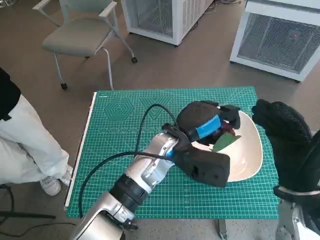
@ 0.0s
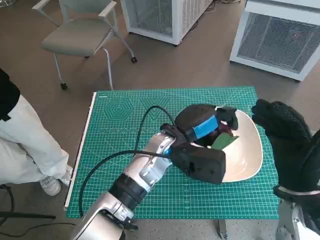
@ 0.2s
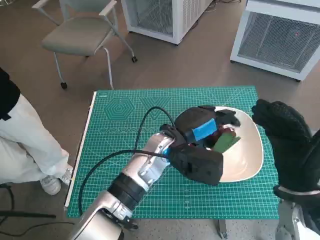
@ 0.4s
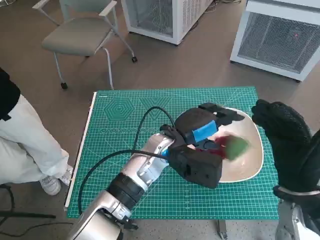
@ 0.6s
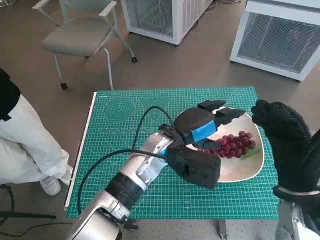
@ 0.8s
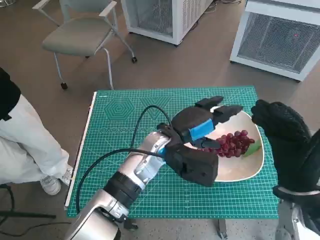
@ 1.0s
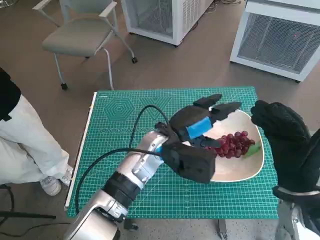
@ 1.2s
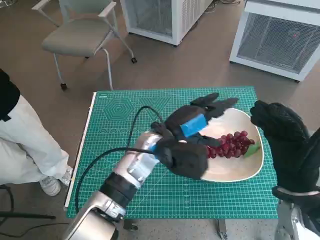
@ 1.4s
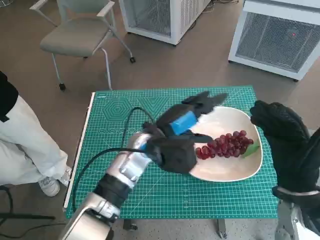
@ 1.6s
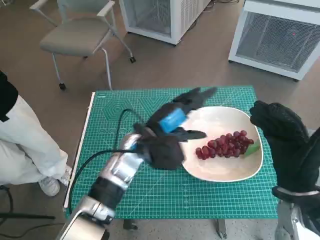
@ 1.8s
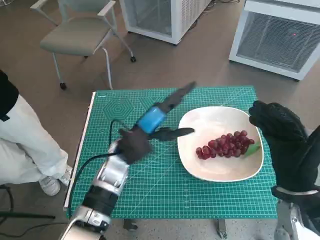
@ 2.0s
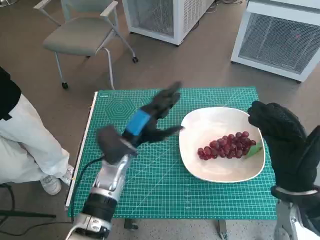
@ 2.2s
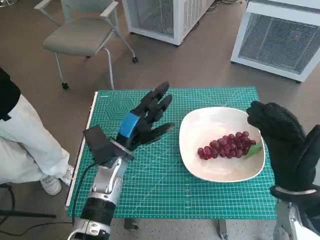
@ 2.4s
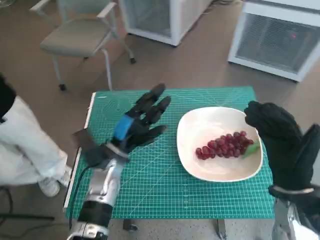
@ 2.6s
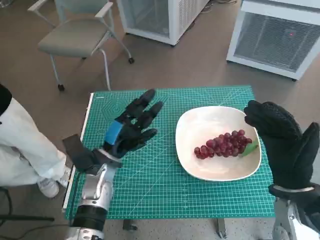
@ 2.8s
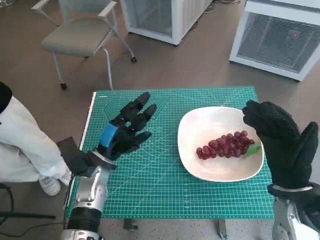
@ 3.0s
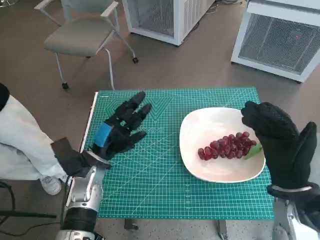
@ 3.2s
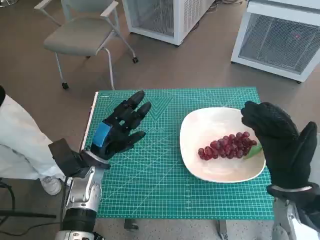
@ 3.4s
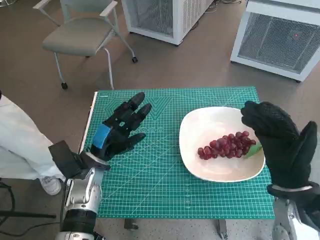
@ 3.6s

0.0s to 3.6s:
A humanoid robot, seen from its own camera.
Task of the whole recording: Pick up the grapes and put them on the plate.
0.0s to 1.8s: The left hand shifts roughly 5 cm to the left.
1.8s to 3.6s: The left hand is displaced to the left and downward by roughly 15 cm.

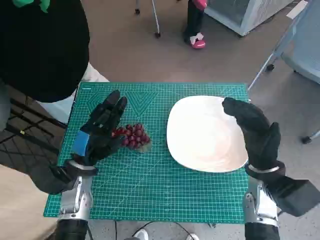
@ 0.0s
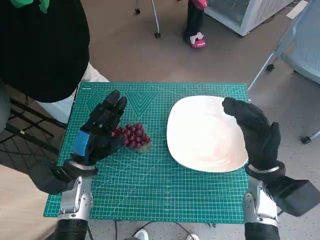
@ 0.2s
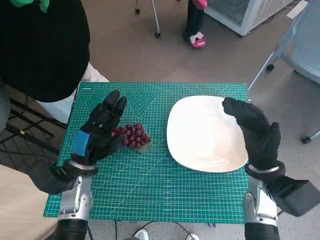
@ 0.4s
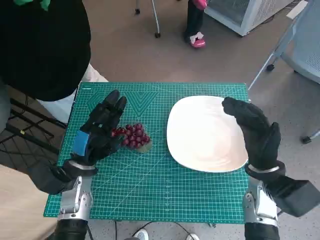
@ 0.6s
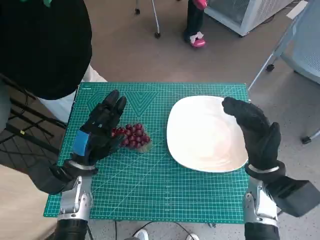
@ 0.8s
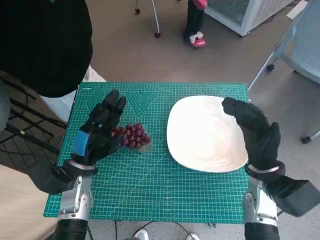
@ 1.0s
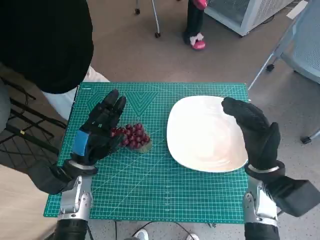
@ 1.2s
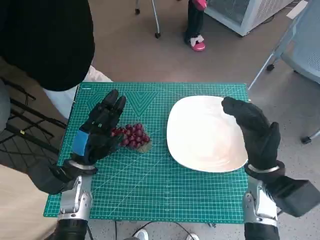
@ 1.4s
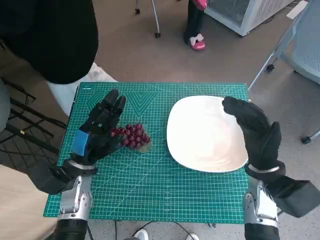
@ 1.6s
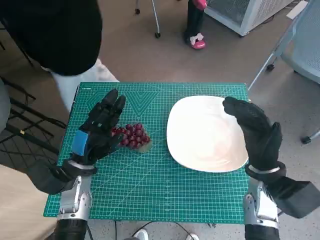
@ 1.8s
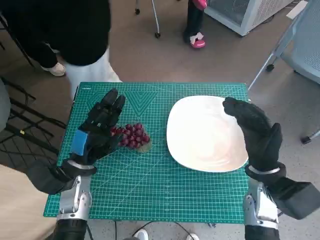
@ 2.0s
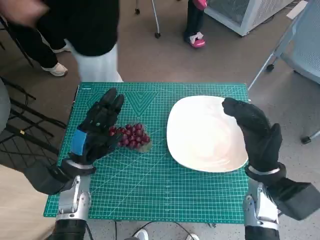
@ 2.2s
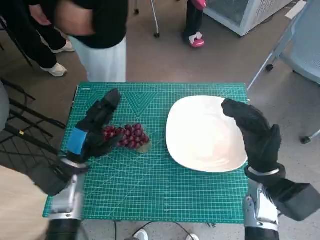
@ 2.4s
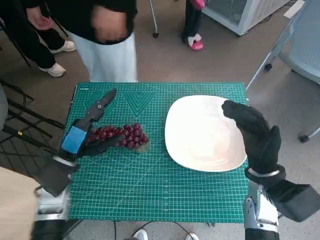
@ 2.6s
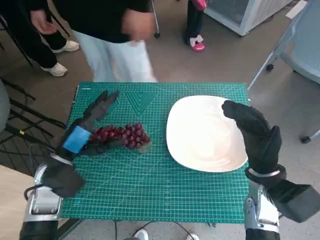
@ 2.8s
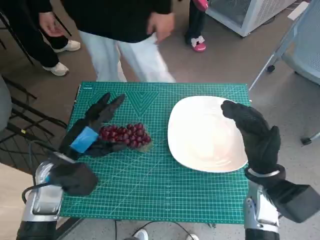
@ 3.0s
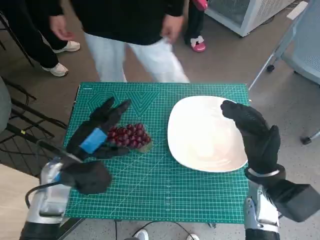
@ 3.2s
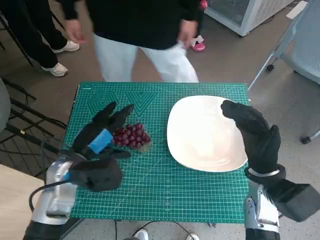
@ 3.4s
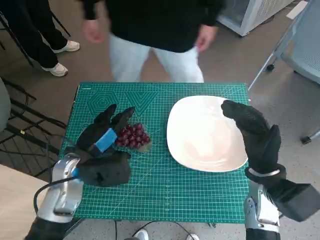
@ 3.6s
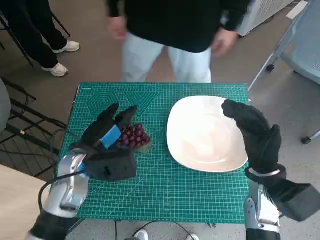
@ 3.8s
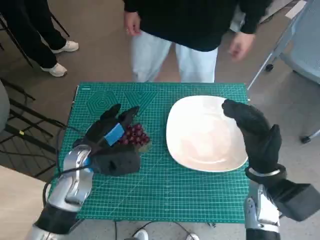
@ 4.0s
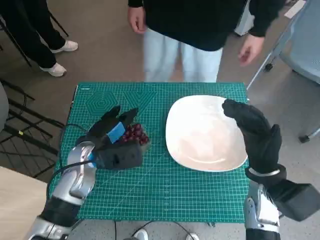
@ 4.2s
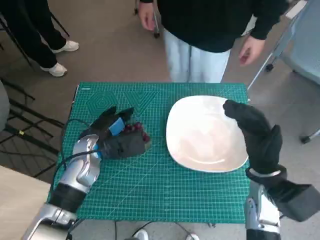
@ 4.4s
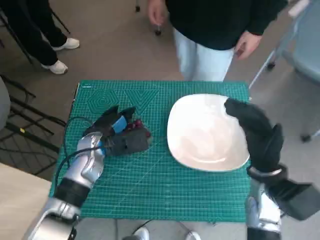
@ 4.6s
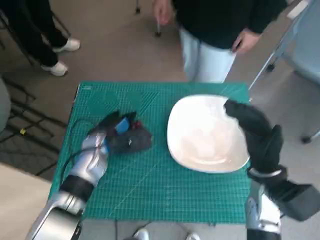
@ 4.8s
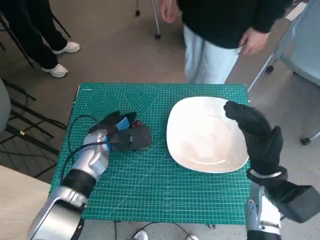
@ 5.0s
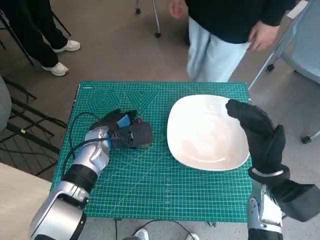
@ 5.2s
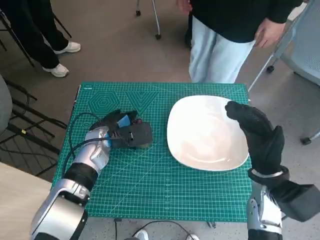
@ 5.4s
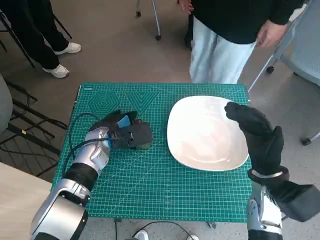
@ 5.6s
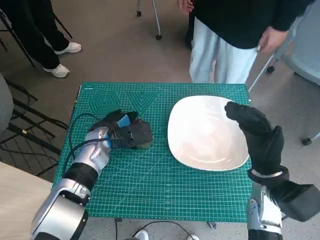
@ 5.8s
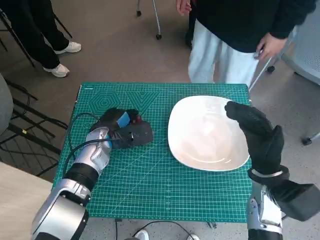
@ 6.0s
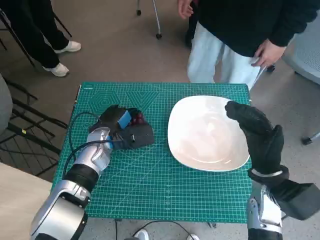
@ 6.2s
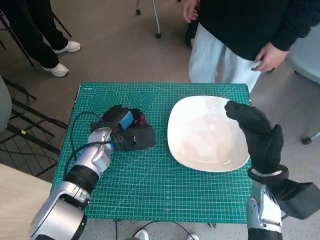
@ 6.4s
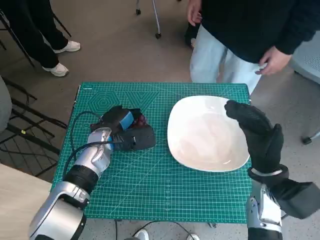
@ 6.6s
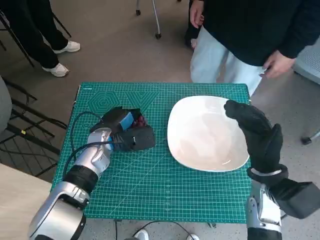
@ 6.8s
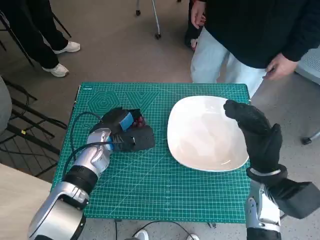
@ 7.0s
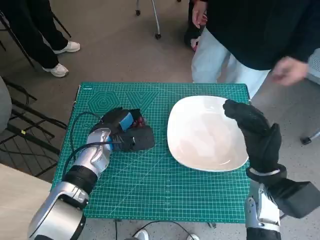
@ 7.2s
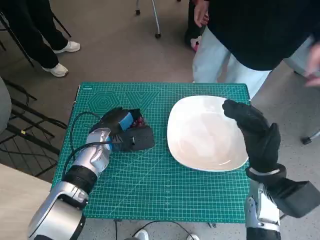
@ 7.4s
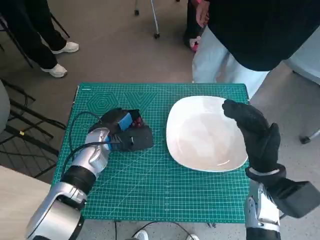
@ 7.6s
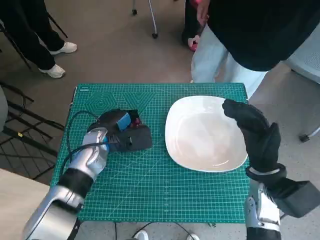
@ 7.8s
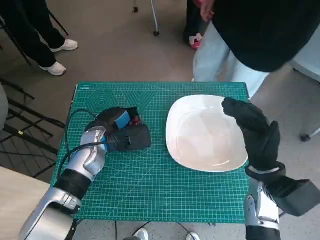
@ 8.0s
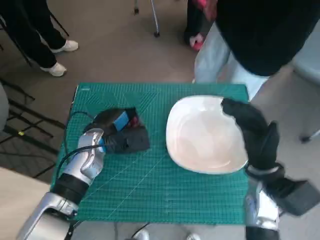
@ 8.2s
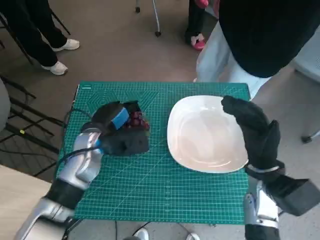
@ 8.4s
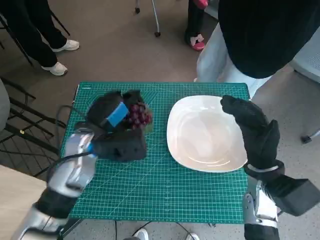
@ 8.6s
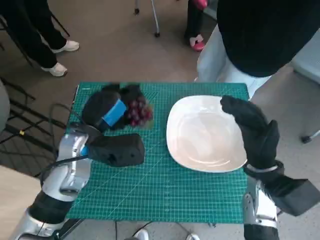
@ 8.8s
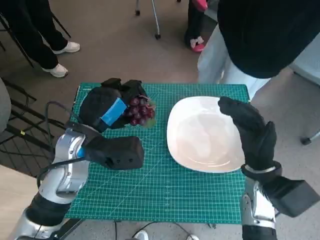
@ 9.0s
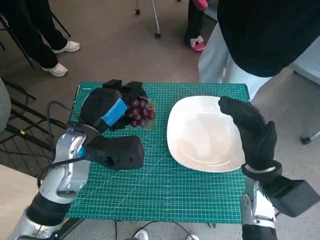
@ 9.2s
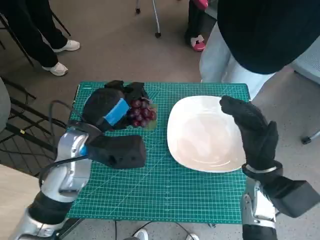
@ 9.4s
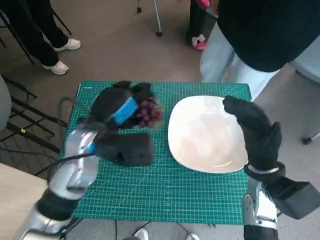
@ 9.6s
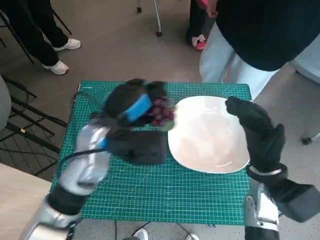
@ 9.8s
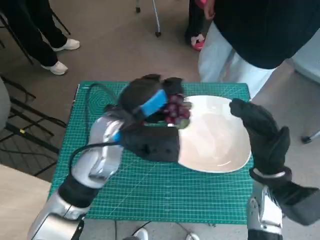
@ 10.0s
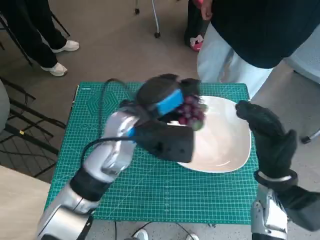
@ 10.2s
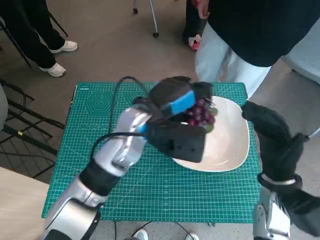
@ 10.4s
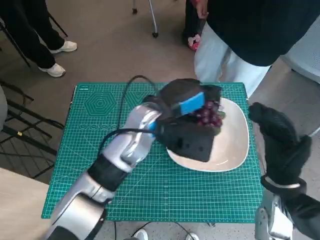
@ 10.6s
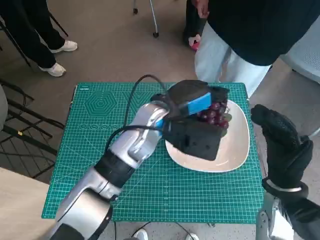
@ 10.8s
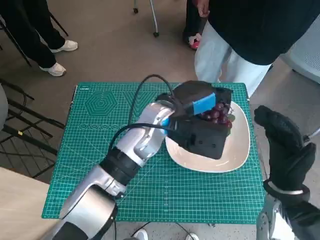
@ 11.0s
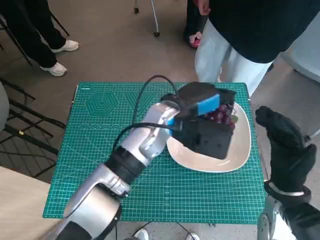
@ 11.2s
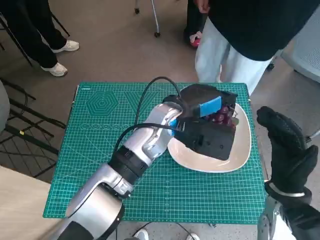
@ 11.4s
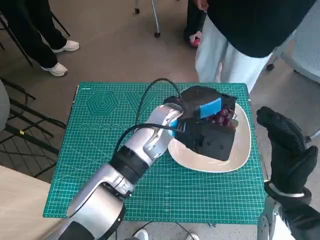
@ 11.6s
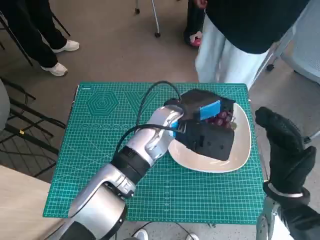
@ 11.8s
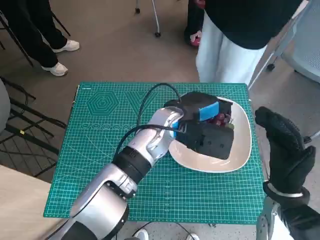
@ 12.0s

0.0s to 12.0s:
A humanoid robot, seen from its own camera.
Task of the whole recording: Pick up the grapes and put them on the plate.
Step, 0.0s to 6.6s: Grasp the grapes with left hand.
1.6s to 3.0s: The left hand moves some 5 cm.
3.0s to 4.4s: The left hand heads forward, covering some 5 cm.
6.0s to 7.6s: The hands make only small movements.
7.6s to 9.0s: The left hand shifts roughly 10 cm upward and backward.
9.0s to 10.4s: The left hand shifts about 10 cm to the right.
10.4s to 12.0s: The left hand goes roughly 5 cm to the right.

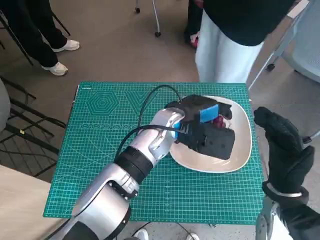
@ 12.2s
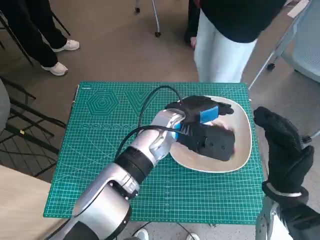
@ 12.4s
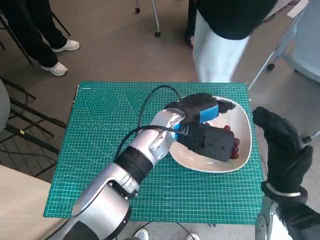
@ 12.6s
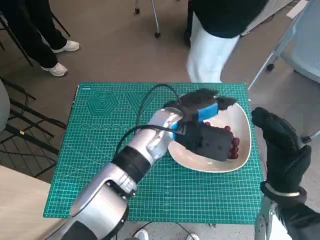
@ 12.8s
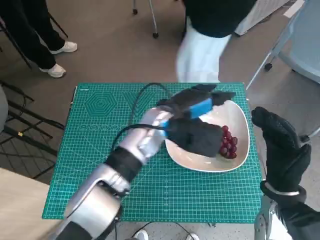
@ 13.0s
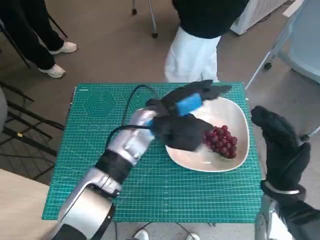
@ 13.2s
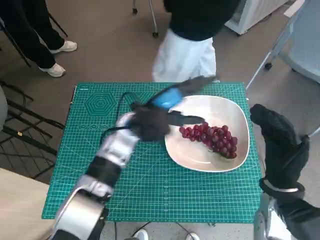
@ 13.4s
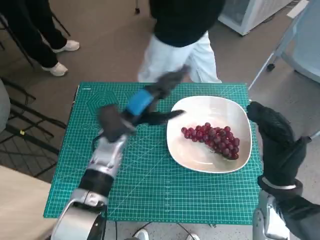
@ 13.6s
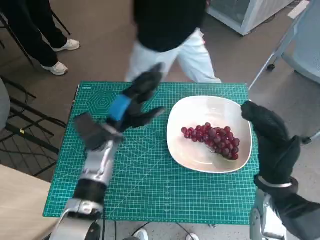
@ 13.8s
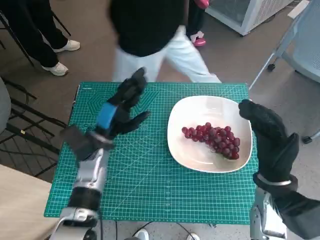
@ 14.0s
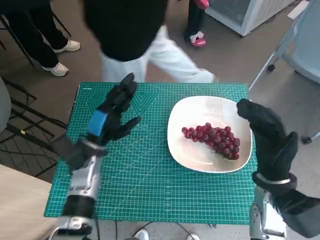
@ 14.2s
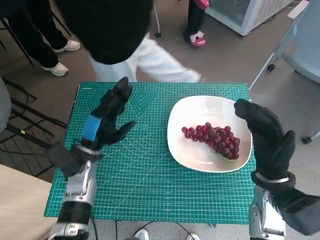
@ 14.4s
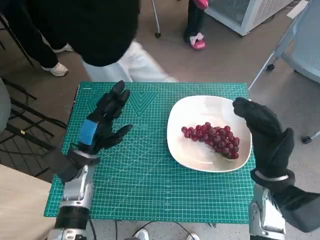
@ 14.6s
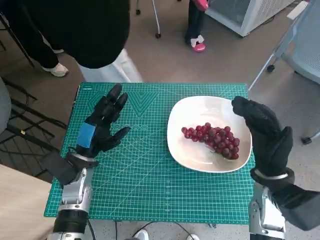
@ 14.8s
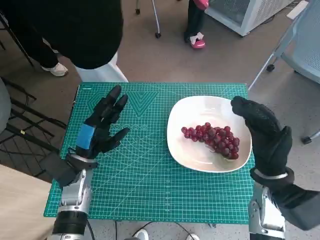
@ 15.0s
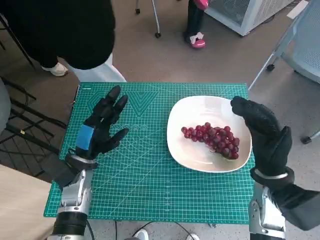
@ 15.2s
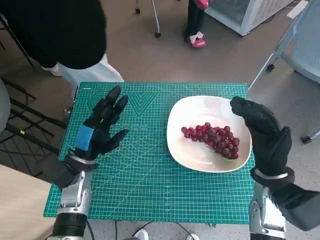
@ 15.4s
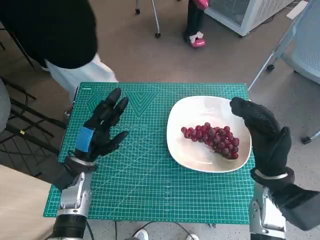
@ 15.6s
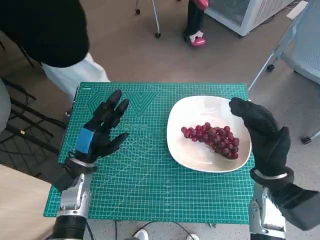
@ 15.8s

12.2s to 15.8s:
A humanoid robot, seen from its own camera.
Task of the whole recording: Pick up the grapes and put them on the plate.
12.2s to 14.0s: The left hand travels to the left and downward by about 15 cm.
14.0s to 15.8s: The left hand shifts about 5 cm backward.

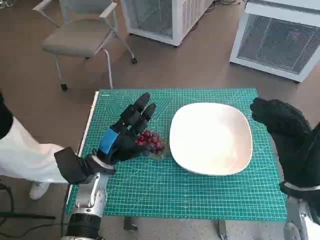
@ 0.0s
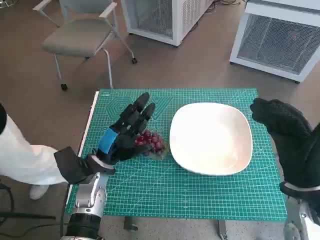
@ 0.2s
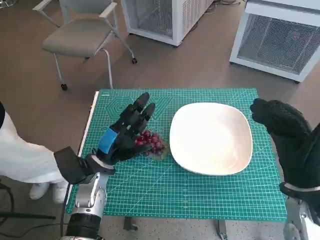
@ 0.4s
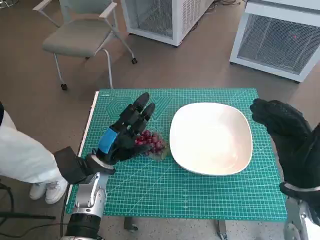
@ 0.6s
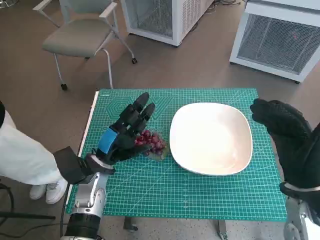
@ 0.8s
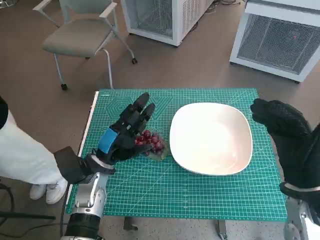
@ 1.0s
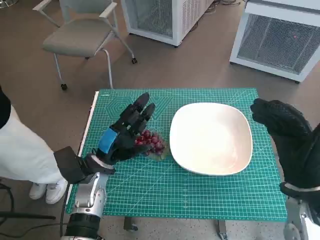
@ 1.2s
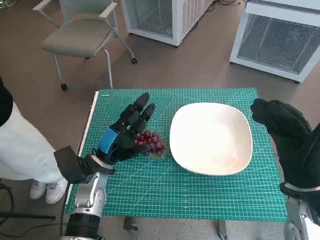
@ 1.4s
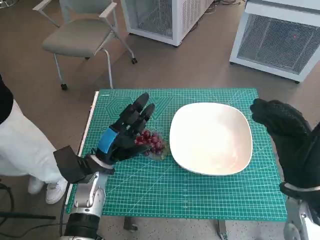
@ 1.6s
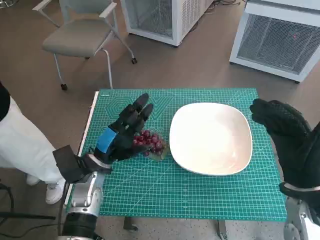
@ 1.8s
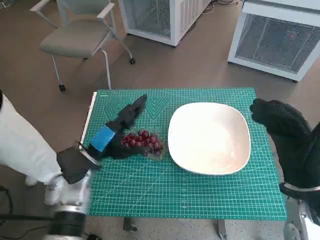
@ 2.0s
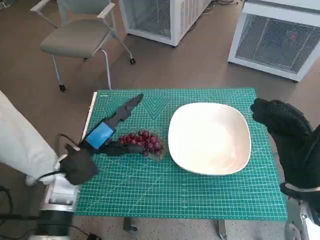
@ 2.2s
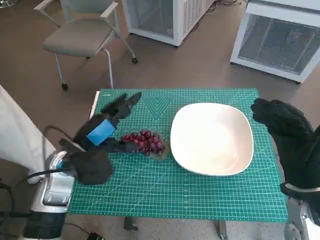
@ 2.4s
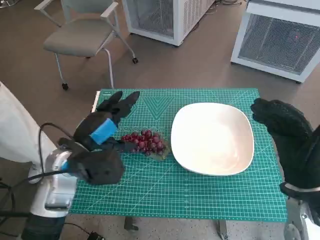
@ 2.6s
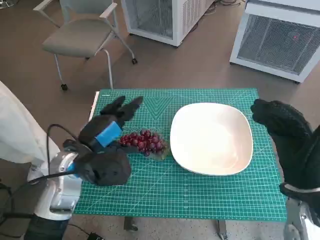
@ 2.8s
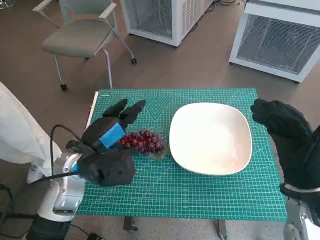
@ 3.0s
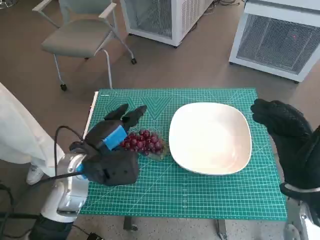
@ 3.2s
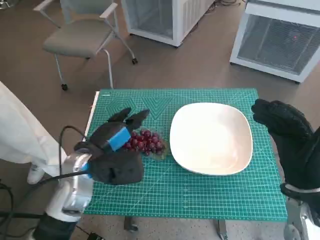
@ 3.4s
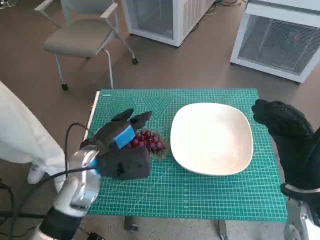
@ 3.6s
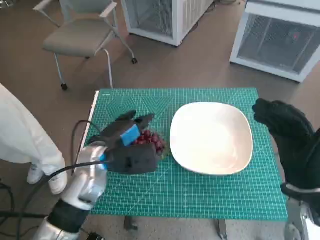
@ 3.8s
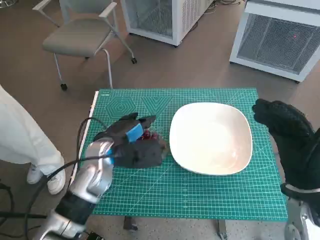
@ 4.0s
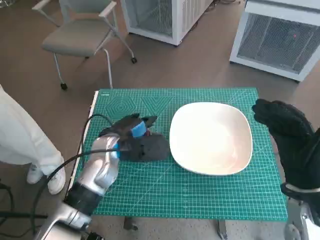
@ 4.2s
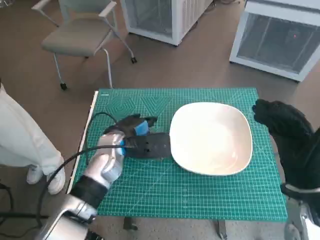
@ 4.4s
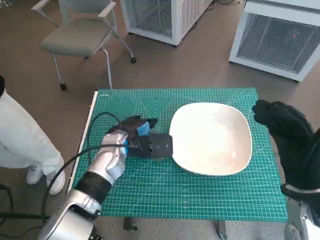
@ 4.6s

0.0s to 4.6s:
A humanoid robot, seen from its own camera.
Task of the whole recording: Pick up the grapes and put them on the plate.
1.6s to 3.0s: The left hand moves upward, about 10 cm.
3.0s to 4.6s: The left hand shifts roughly 10 cm forward and to the right.
